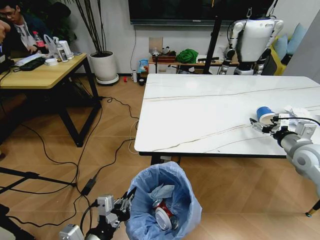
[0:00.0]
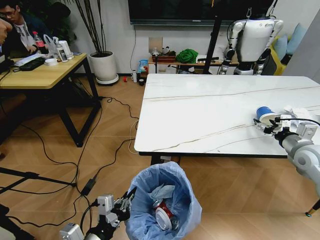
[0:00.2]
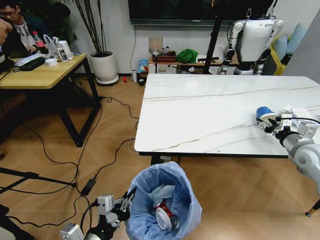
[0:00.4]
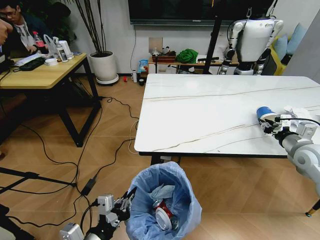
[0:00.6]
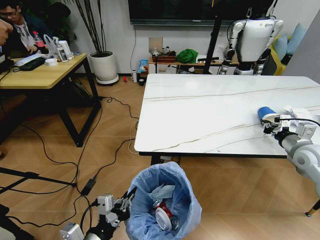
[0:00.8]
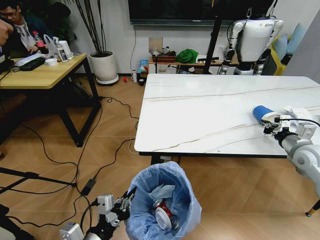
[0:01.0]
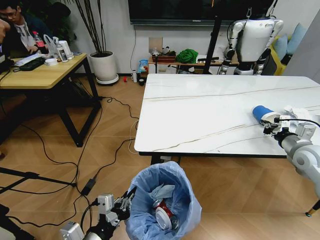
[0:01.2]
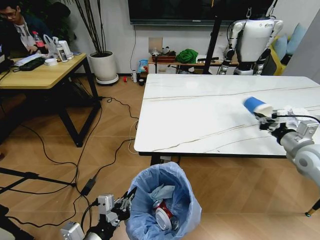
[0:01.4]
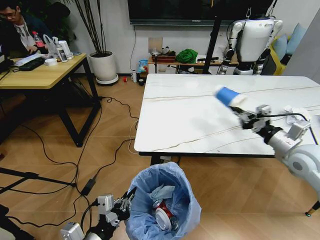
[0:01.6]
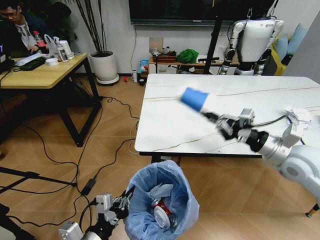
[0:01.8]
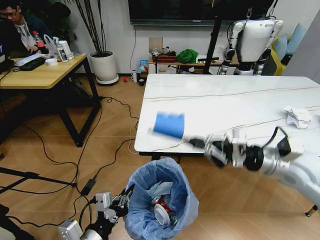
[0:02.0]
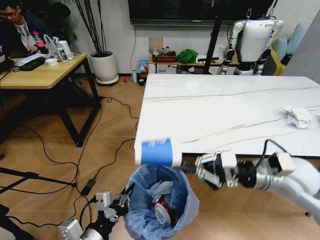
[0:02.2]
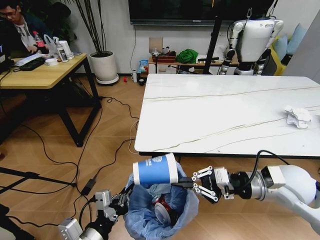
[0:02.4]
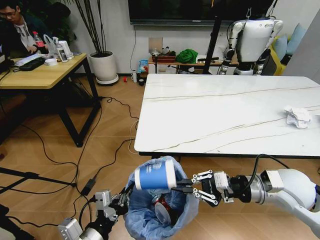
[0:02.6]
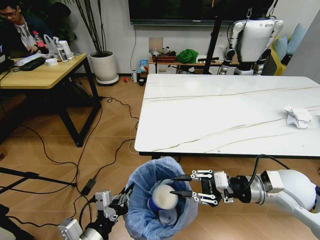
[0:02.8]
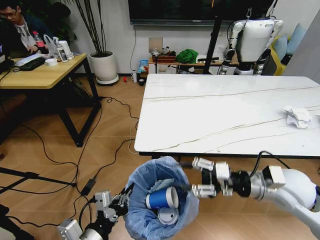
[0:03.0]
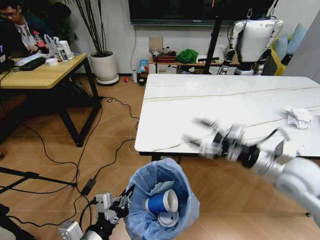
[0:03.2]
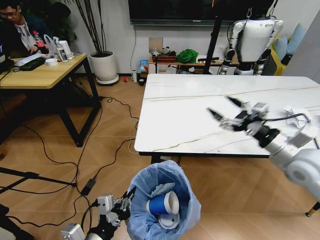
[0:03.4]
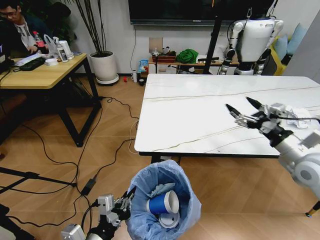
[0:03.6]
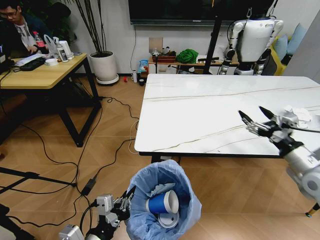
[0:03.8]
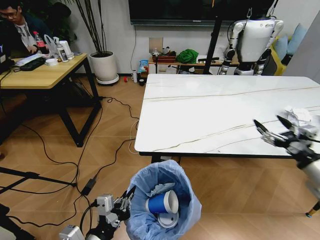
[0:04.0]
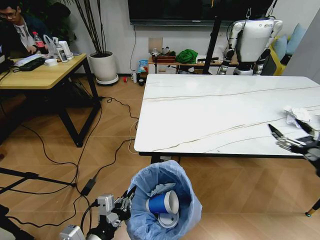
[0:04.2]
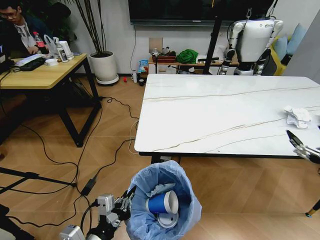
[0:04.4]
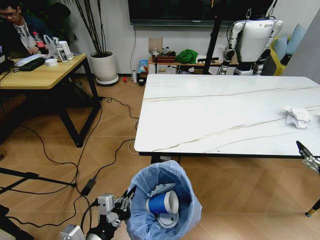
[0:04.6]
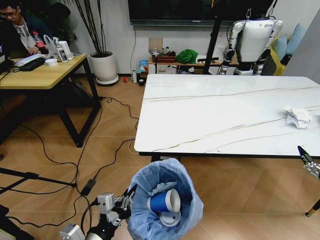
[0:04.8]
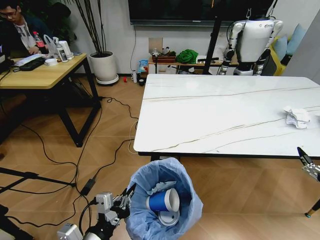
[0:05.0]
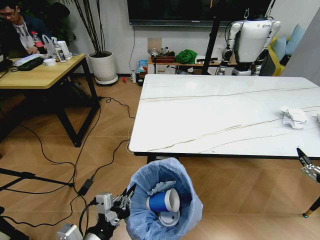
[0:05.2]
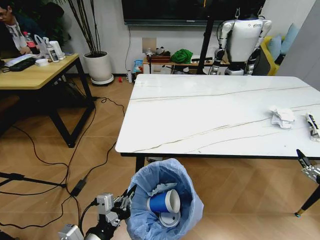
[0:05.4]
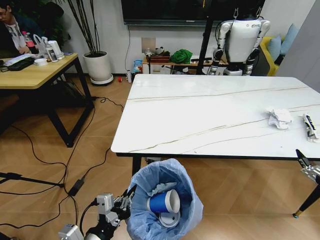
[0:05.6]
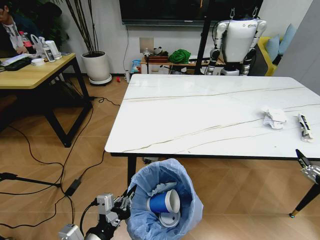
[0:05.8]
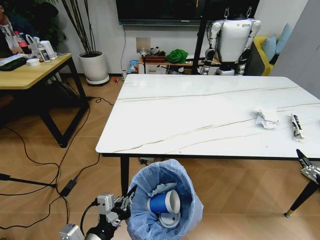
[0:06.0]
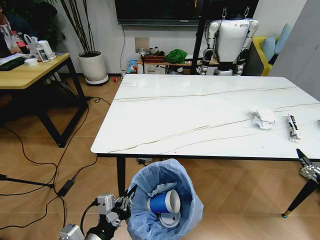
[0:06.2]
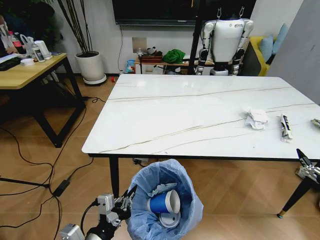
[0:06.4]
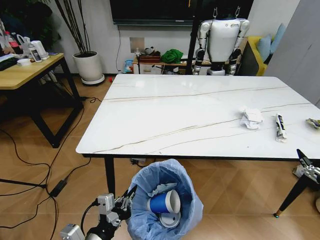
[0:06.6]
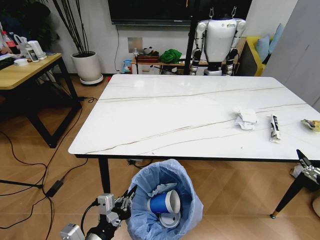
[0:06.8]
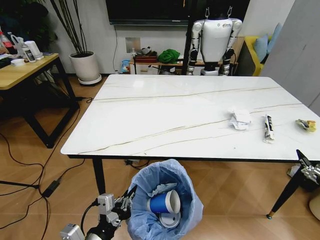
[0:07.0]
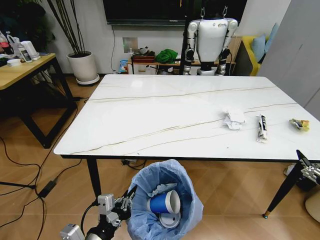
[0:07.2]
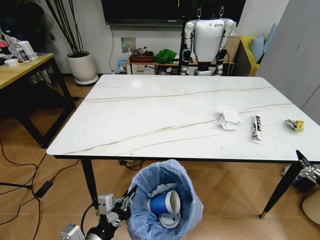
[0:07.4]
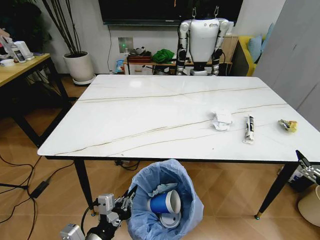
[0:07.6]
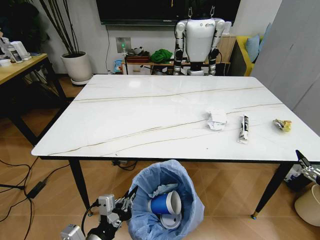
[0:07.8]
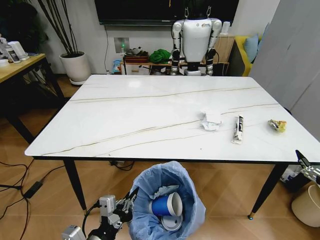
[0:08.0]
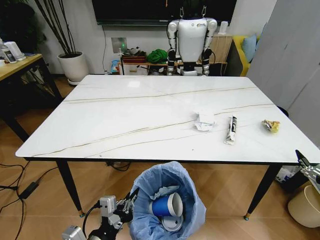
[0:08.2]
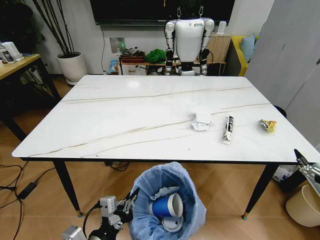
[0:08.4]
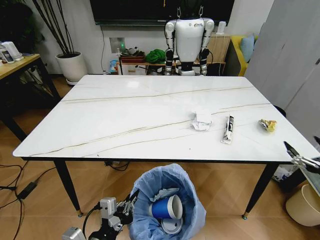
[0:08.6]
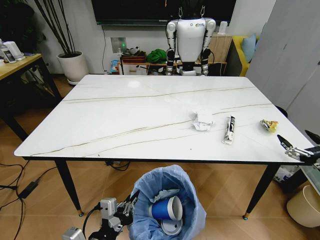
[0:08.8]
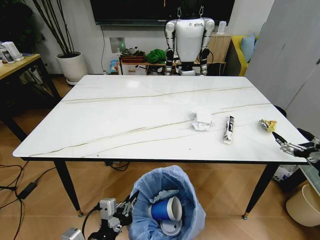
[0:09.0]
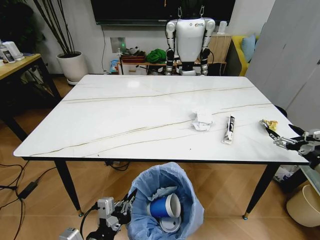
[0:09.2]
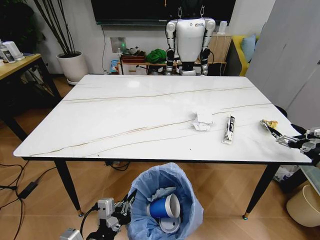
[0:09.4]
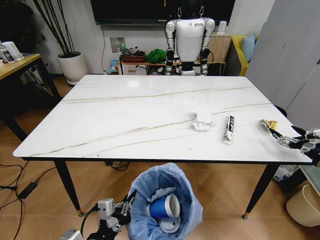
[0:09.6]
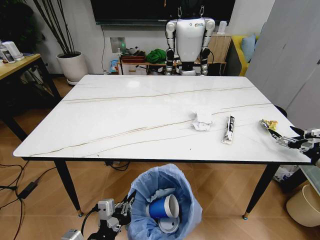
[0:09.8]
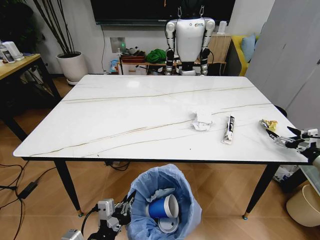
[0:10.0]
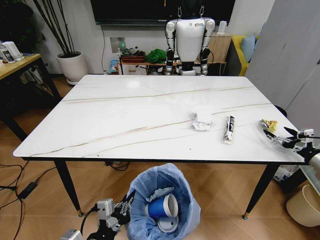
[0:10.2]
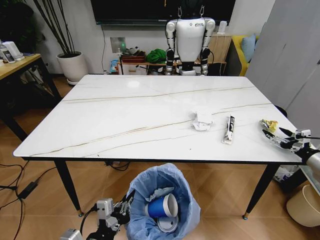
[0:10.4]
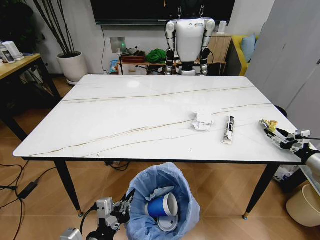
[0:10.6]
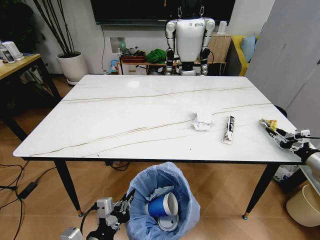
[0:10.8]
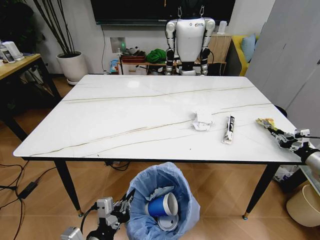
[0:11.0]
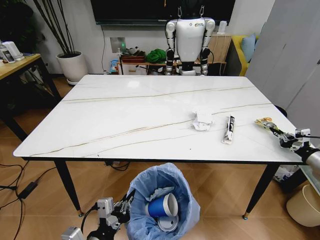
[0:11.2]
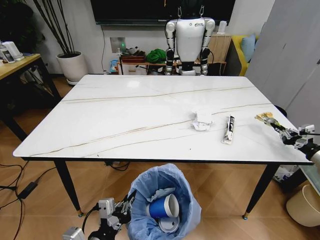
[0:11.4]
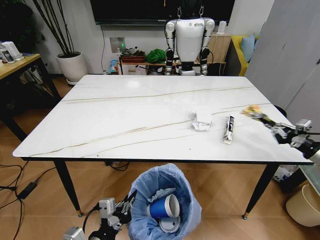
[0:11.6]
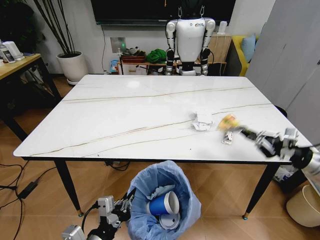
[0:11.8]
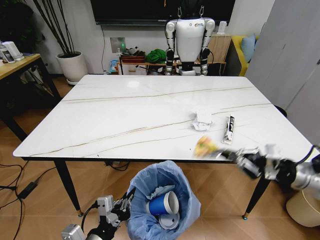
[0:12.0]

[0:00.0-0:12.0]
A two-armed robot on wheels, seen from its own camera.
Task of the whole recording: Pick up the trash bin and place the trash from the table into it.
0:00.0 to 0:01.6: The right gripper travels to the left by approximately 5 cm, and closes its fingers.
0:01.6 to 0:03.0: The right gripper goes about 10 cm to the left and backward, and opens up.
0:03.0 to 0:04.4: The right gripper heads to the right and backward, covering roughly 20 cm, and opens.
0:04.4 to 0:06.0: The right gripper goes roughly 5 cm downward.
0:07.6 to 0:09.0: The right gripper is displaced forward by about 10 cm.
0:09.0 to 0:10.4: The right gripper travels forward by about 10 cm.
0:10.4 to 0:12.0: The right gripper heads to the left and upward, covering about 15 cm, and closes up.

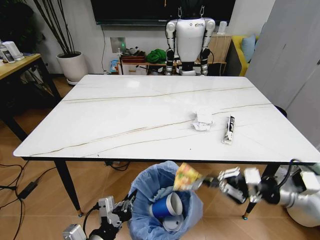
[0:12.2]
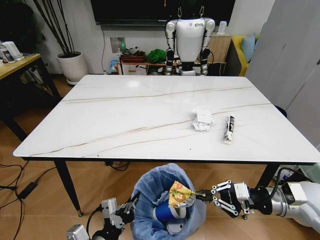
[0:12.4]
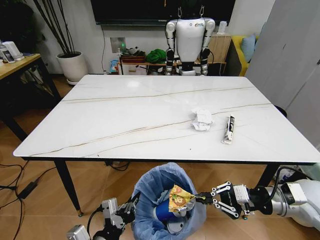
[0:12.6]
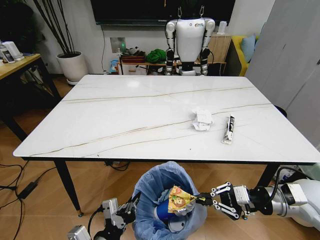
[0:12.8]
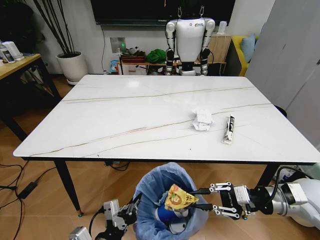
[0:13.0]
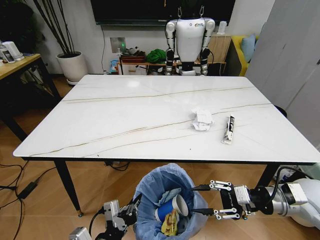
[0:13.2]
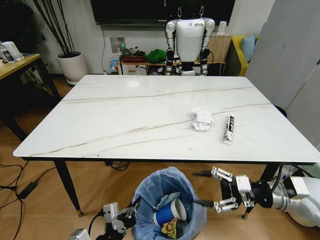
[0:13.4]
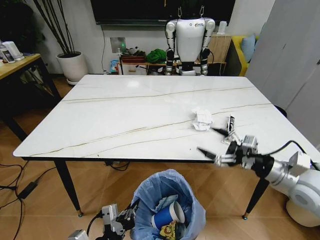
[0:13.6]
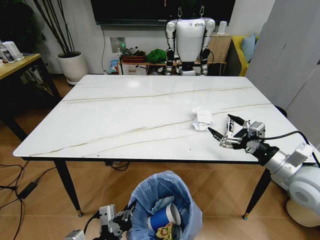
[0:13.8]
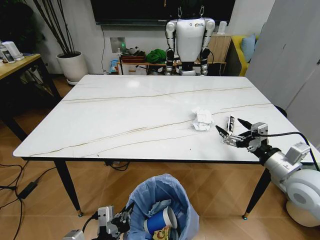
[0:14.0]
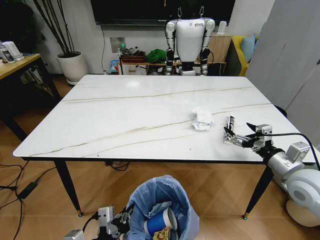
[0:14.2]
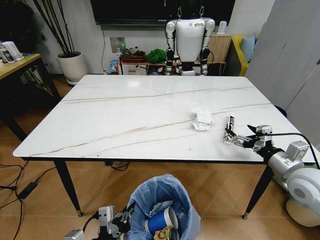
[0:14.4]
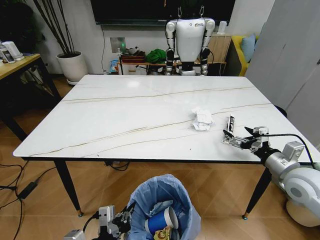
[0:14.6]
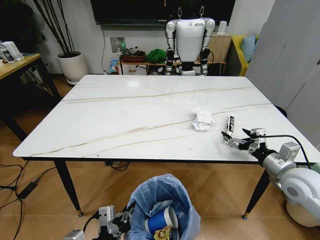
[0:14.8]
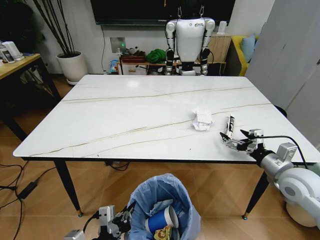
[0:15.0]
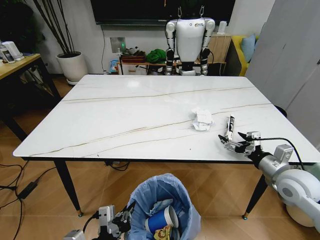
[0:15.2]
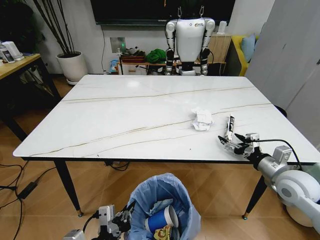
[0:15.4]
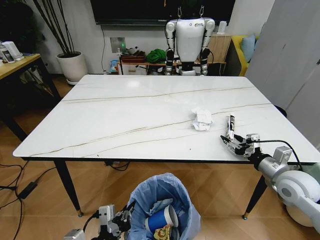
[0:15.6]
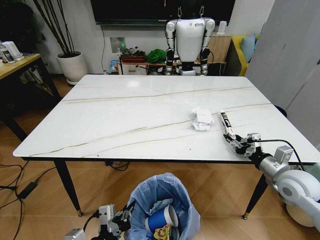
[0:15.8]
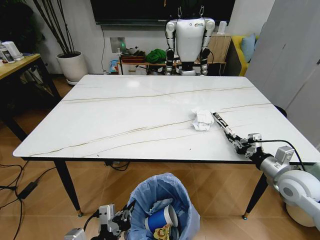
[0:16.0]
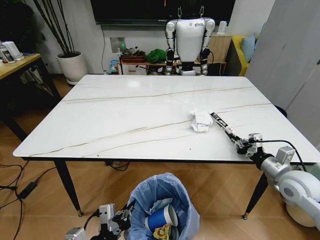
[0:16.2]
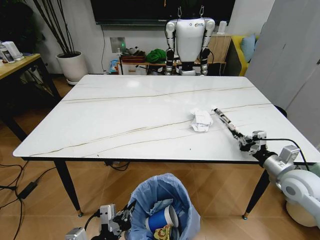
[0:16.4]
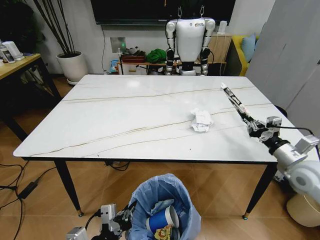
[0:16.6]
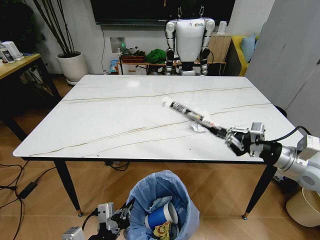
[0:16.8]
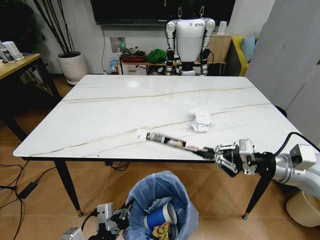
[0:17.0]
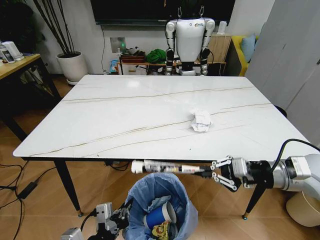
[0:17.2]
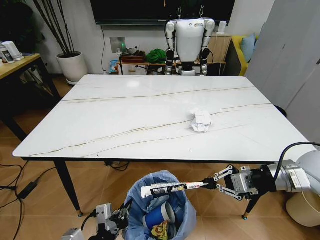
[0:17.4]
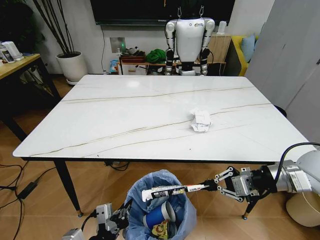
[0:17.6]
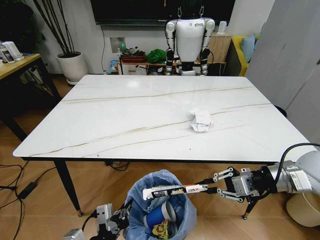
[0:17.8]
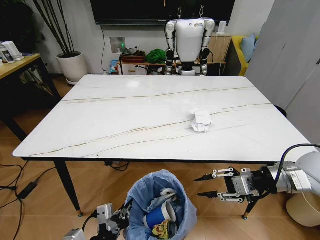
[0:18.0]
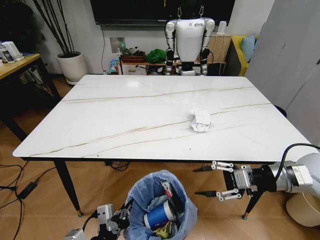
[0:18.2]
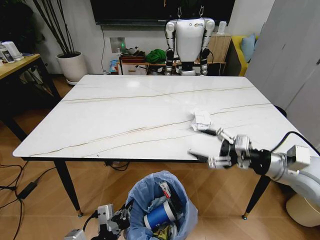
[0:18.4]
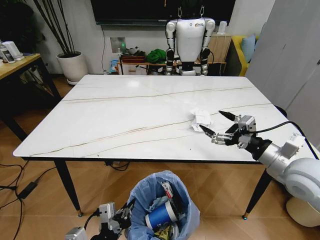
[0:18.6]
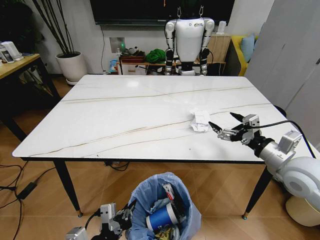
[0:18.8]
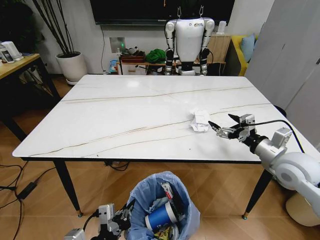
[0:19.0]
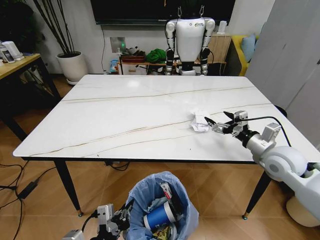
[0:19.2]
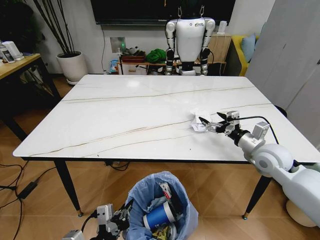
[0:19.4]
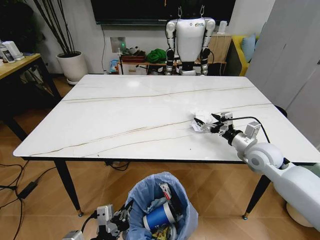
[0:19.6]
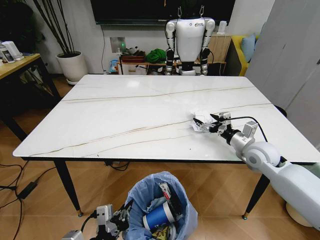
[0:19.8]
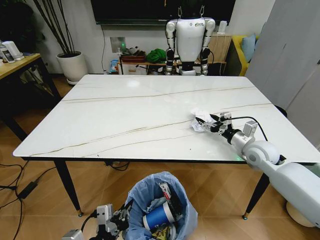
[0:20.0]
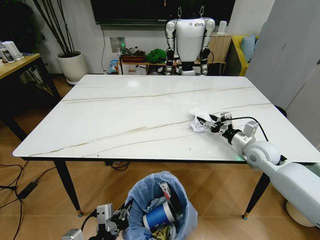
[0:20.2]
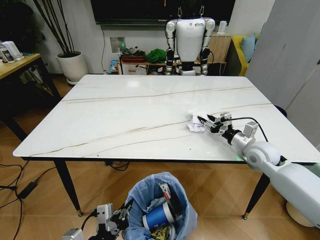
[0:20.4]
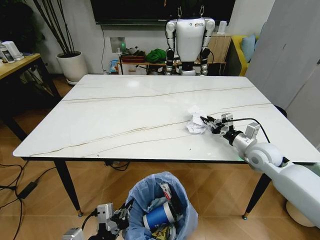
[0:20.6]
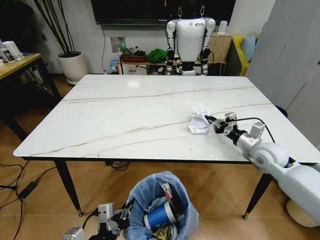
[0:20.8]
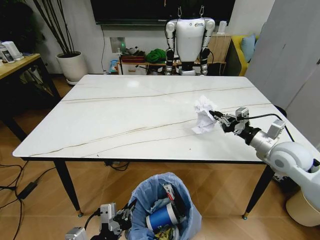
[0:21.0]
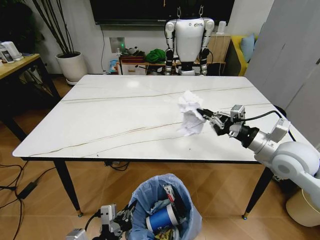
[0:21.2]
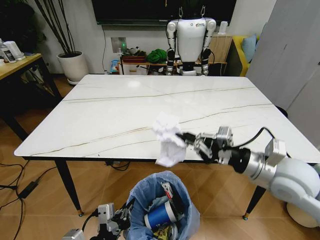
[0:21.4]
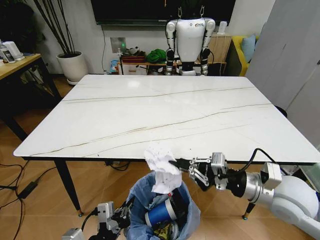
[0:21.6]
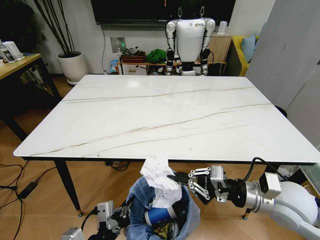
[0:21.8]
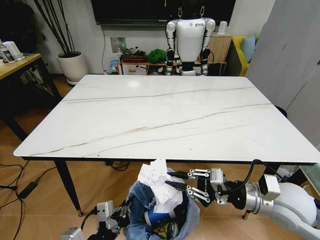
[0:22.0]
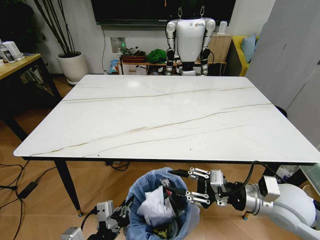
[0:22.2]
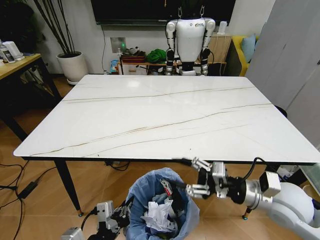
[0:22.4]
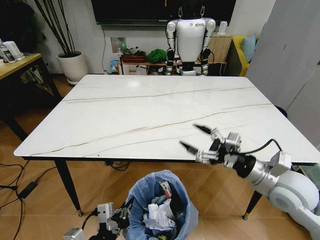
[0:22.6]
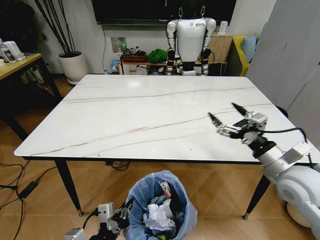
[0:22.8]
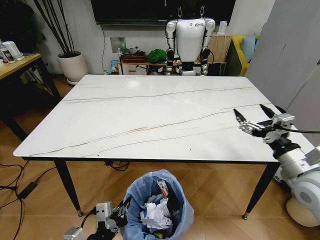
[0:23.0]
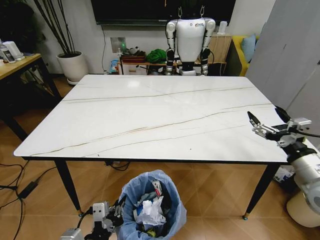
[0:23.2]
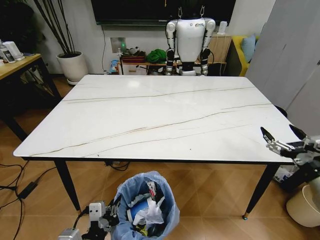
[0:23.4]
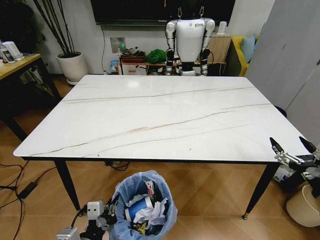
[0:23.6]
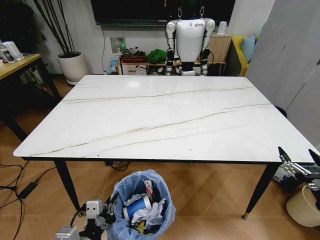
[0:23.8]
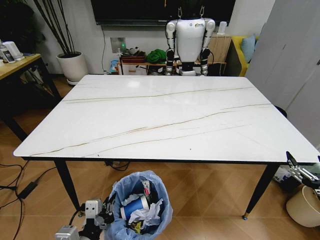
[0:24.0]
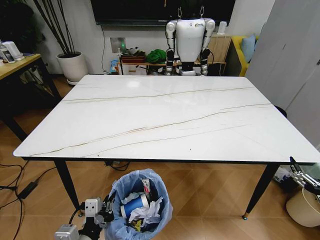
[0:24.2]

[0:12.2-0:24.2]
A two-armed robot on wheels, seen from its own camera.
Task of the whole recording: Pick up the trash bin and place the trash from the table into it.
0:12.2 to 0:13.8: The right gripper opens its fingers.
0:13.8 to 0:15.2: The right gripper is displaced downward by approximately 5 cm.
0:15.2 to 0:16.6: The right gripper moves approximately 5 cm, and closes its fingers.
0:16.6 to 0:18.2: The right gripper heads upward and to the left, covering approximately 10 cm, and opens its fingers.
0:18.2 to 0:19.8: The right gripper shifts roughly 15 cm forward and downward, and opens up.
0:19.8 to 0:21.2: The right gripper shifts about 10 cm upward and backward, and closes up.
0:21.2 to 0:22.6: The right gripper heads backward, covering approximately 5 cm, and opens.
0:22.6 to 0:24.2: The right gripper travels backward, to the right and downward by approximately 25 cm.
